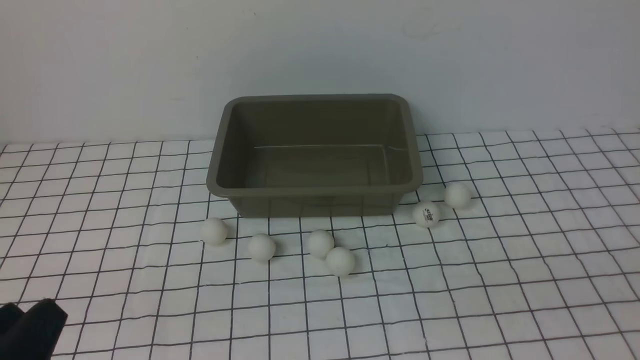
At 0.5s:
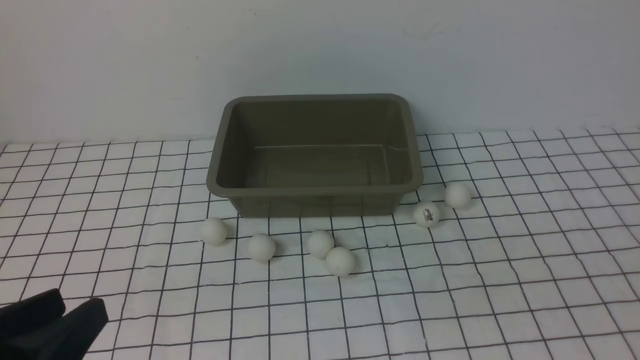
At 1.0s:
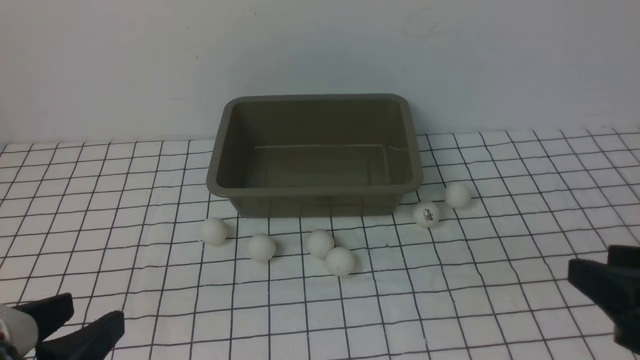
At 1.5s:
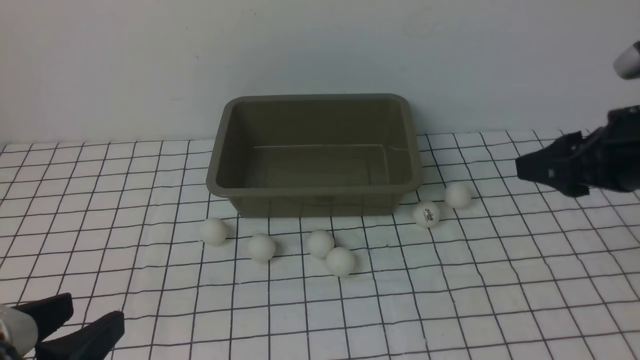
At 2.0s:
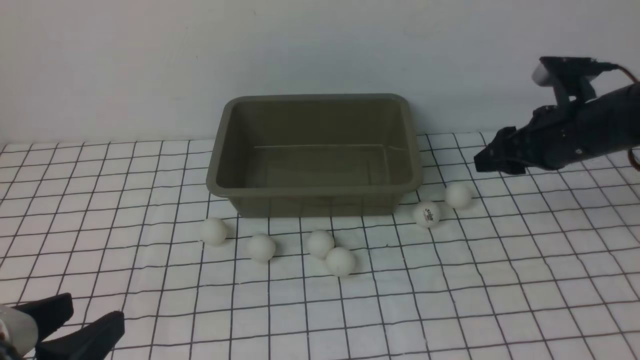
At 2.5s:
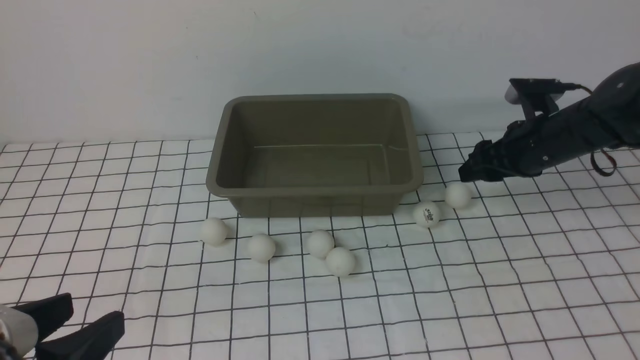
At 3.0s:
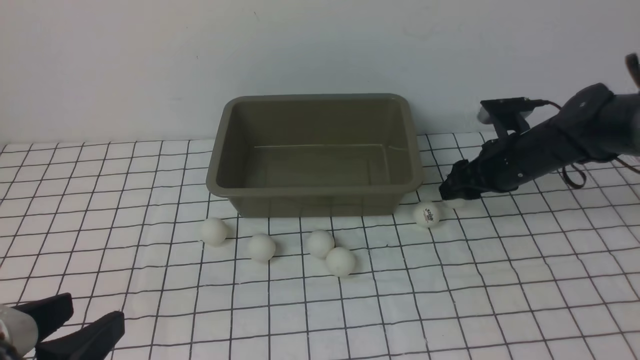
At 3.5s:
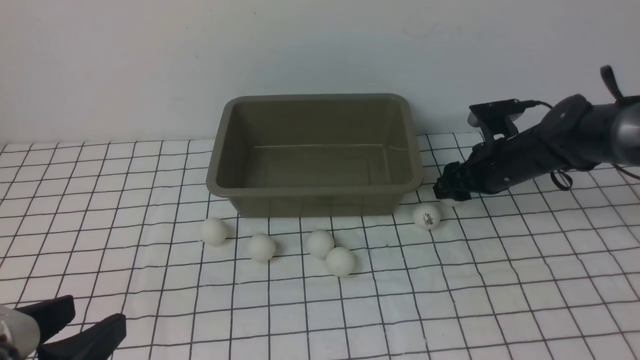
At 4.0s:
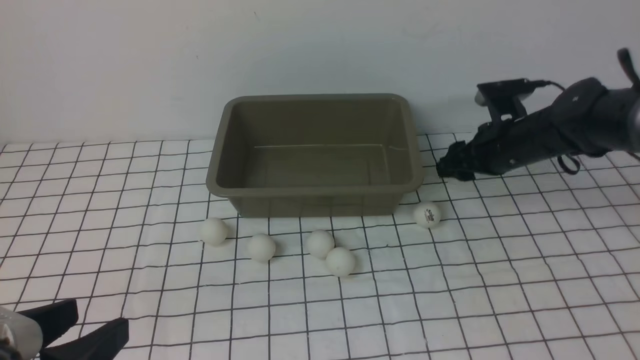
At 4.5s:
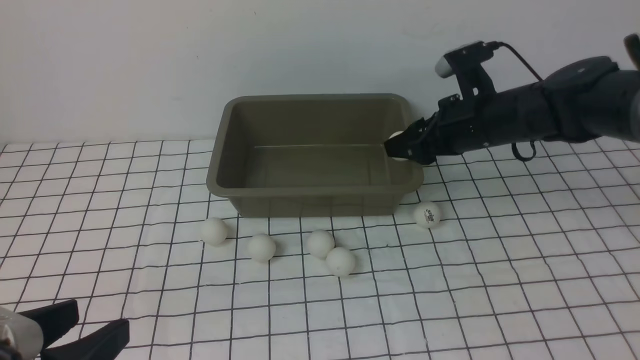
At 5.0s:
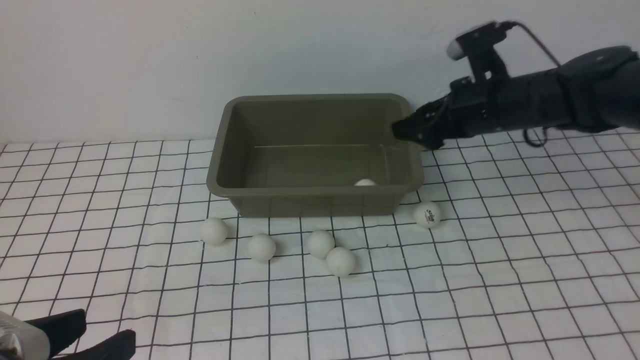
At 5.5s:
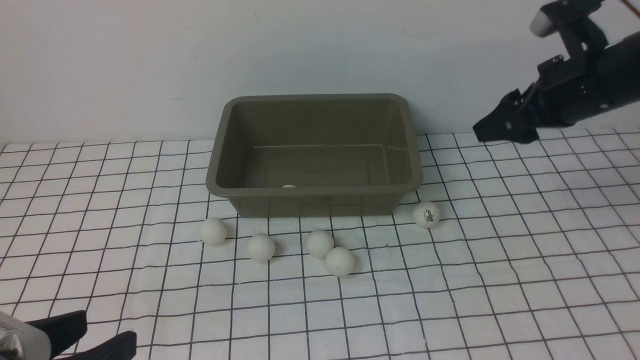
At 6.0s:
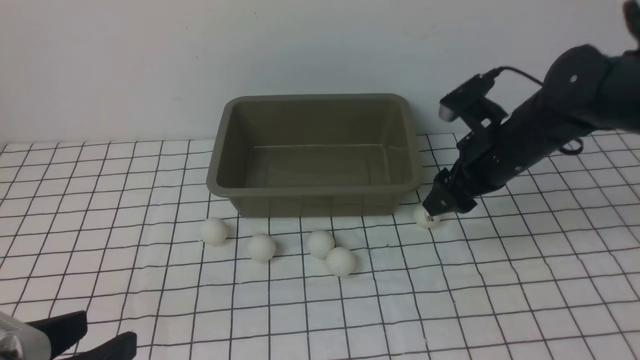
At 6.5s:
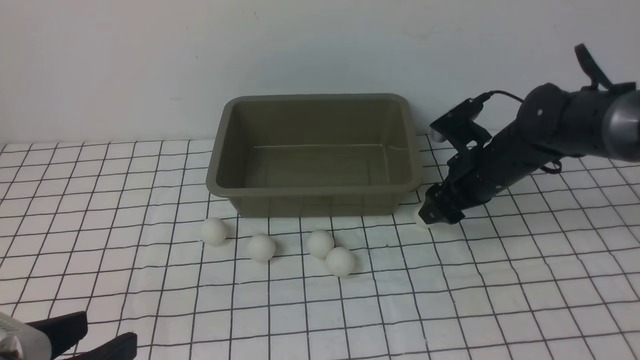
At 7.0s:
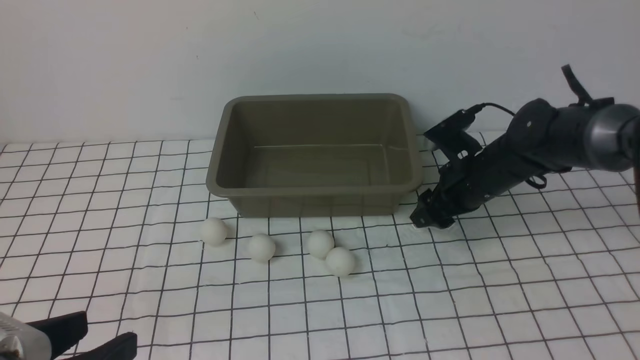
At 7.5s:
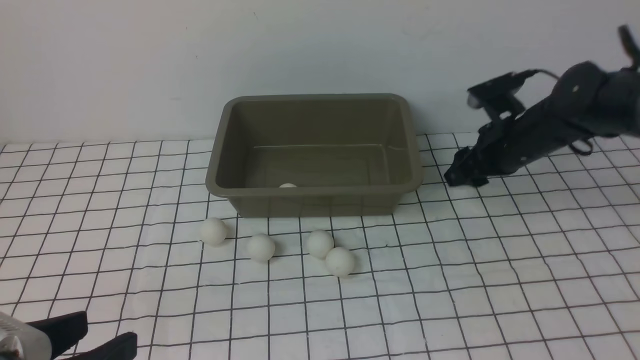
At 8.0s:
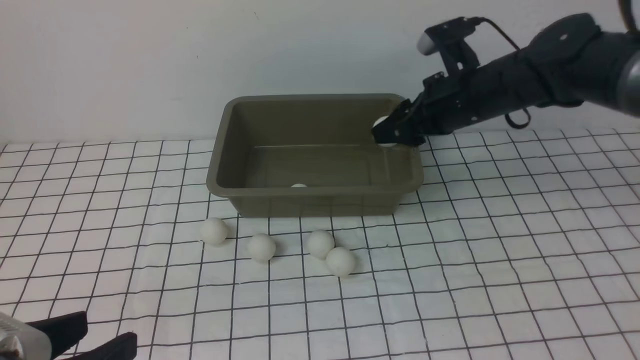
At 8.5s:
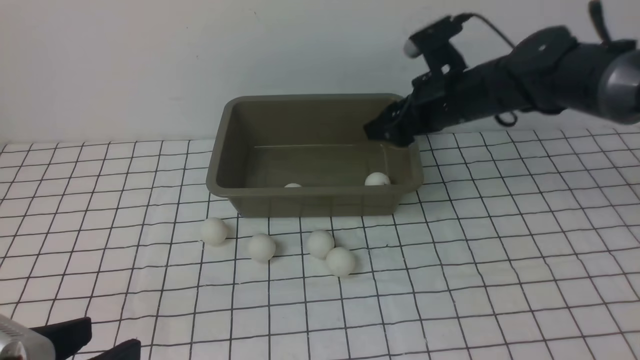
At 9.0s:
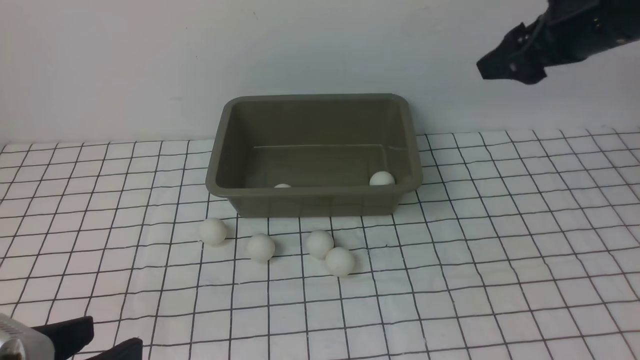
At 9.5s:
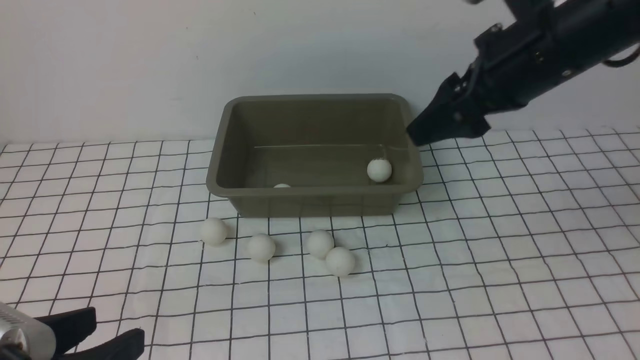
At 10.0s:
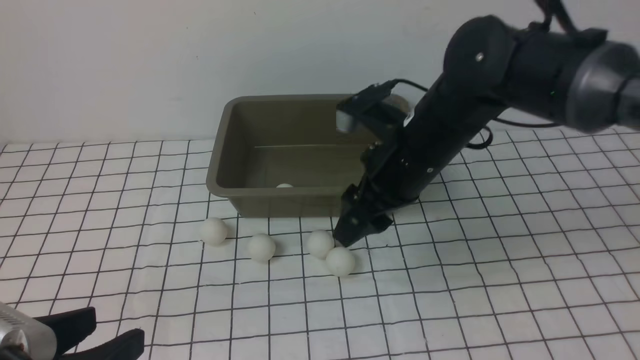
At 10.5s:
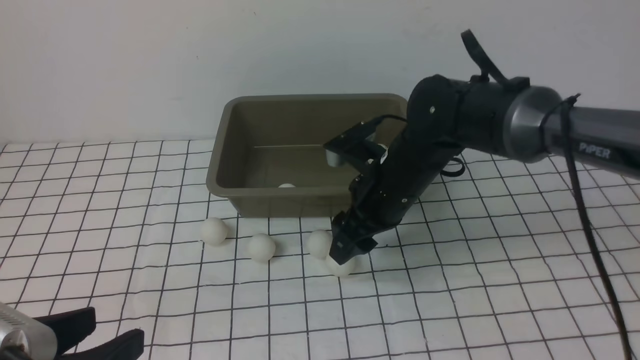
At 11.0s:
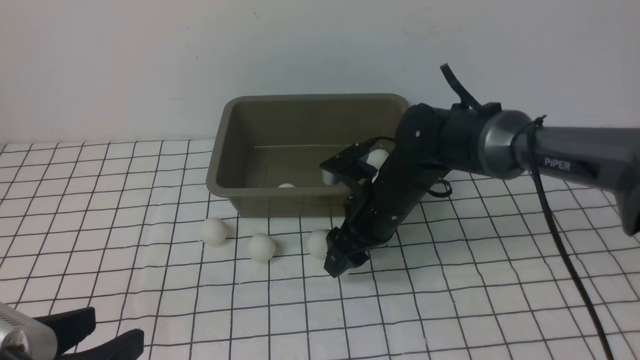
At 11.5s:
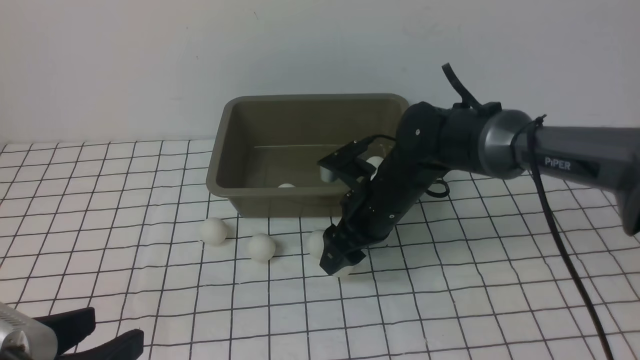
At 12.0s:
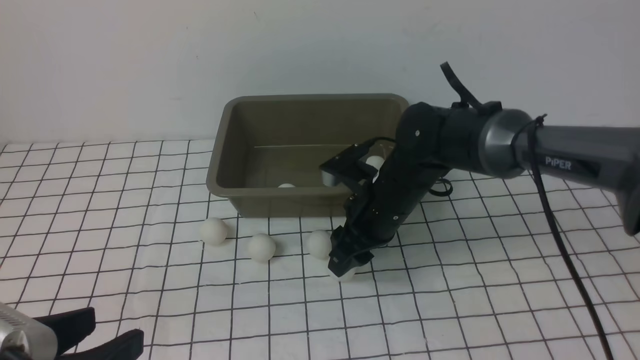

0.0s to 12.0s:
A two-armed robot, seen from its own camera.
Step, 0.0s to 4.0s: use the right arm to clamp the table tennis ball closest to it.
Step, 4.5s to 5.0s: use the right arm to put the table tennis ball into the box.
Step, 5.5s to 7.5s: use the right arm to clamp the table tennis ball closest to it.
Step, 8.0s to 8.5s: use the right arm to put the table tennis ball into the box.
0.0s to 2.0s: The right gripper travels forward by approximately 40 cm, and opens up.
2.0s to 4.0s: The right gripper heads to the left, covering approximately 10 cm.
6.0s to 8.0s: The right gripper goes roughly 10 cm upward.
8.0s to 10.0s: The right gripper is displaced downward, to the left and backward by some 15 cm.
10.0s to 12.0s: The grippers make only small movements.

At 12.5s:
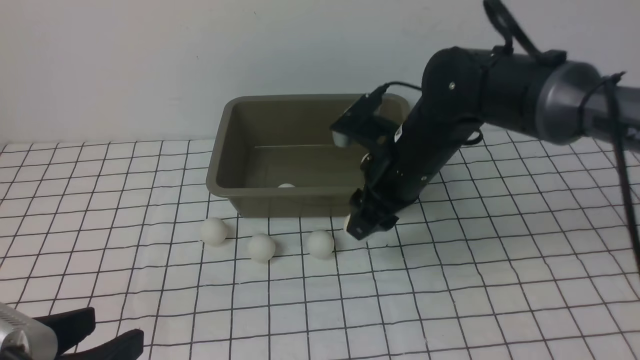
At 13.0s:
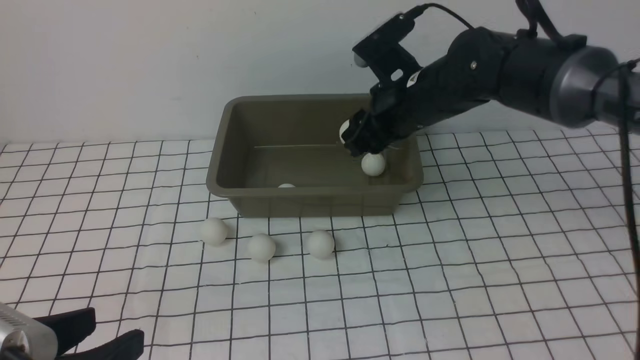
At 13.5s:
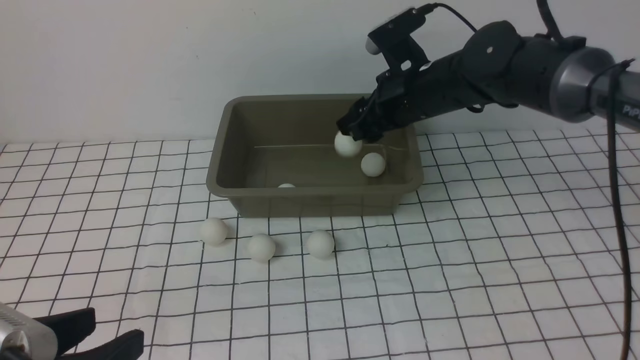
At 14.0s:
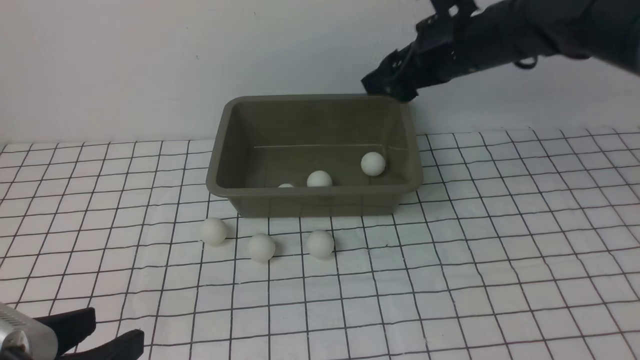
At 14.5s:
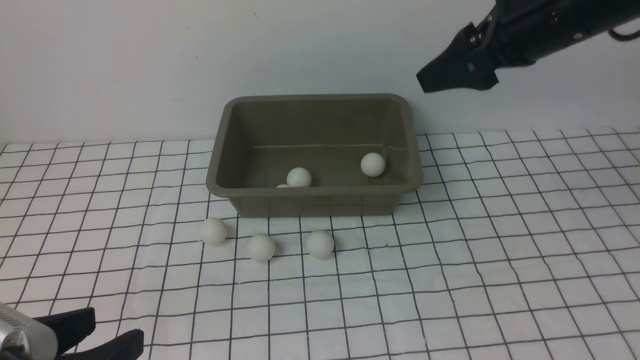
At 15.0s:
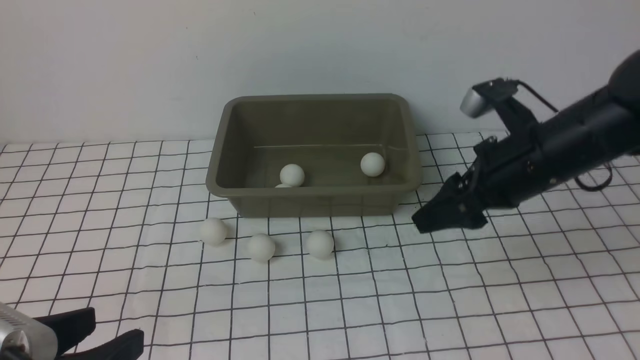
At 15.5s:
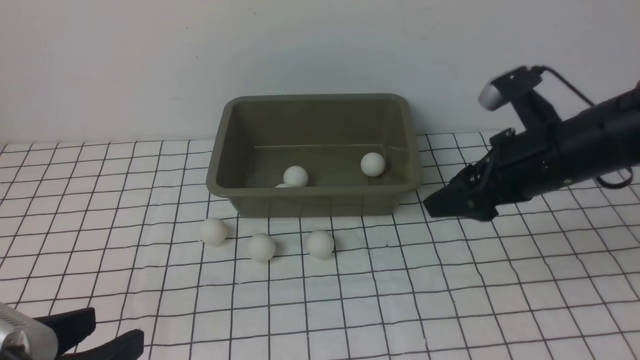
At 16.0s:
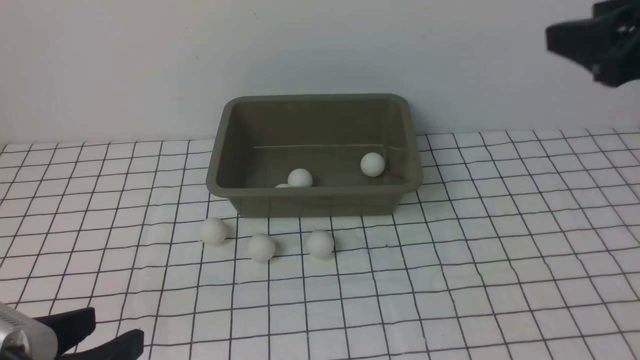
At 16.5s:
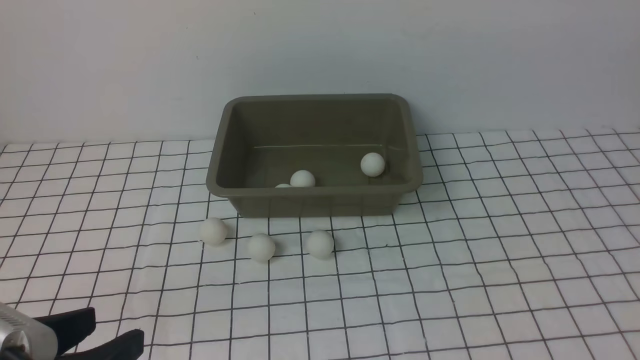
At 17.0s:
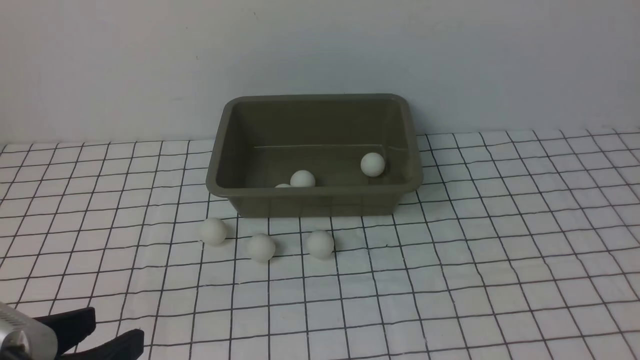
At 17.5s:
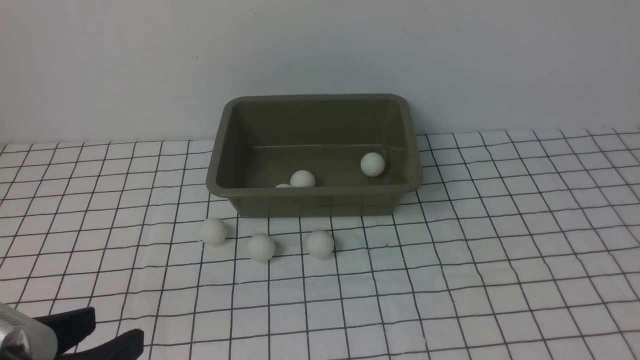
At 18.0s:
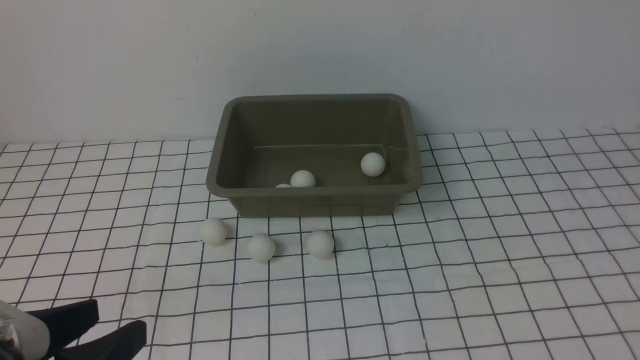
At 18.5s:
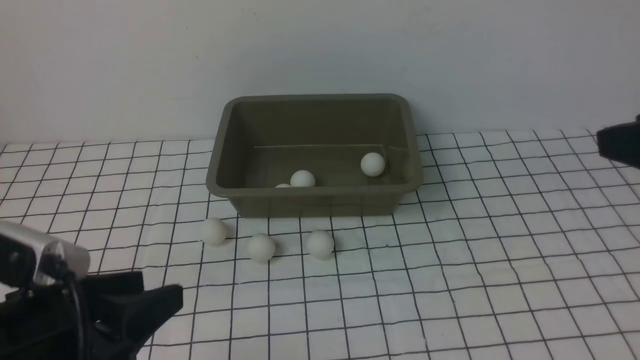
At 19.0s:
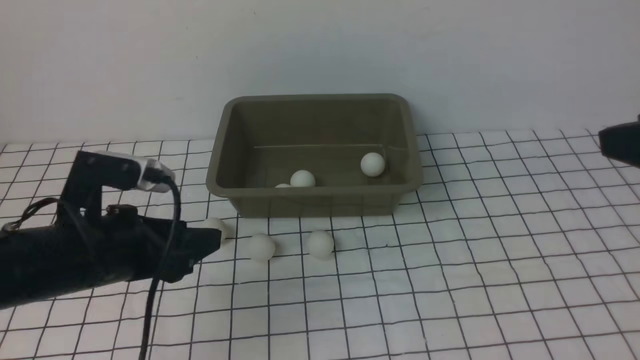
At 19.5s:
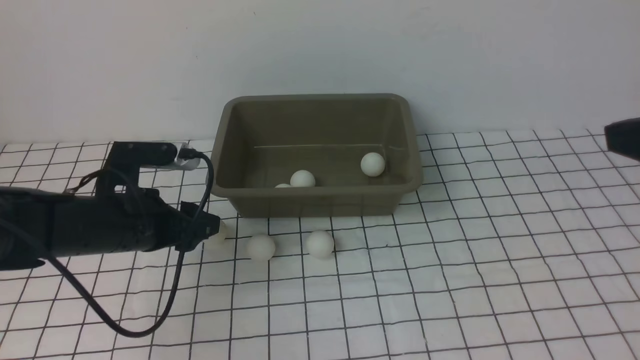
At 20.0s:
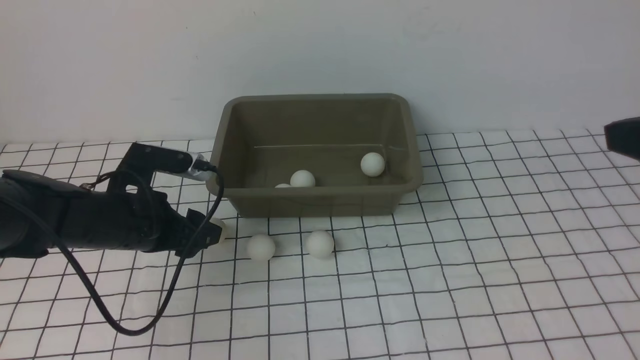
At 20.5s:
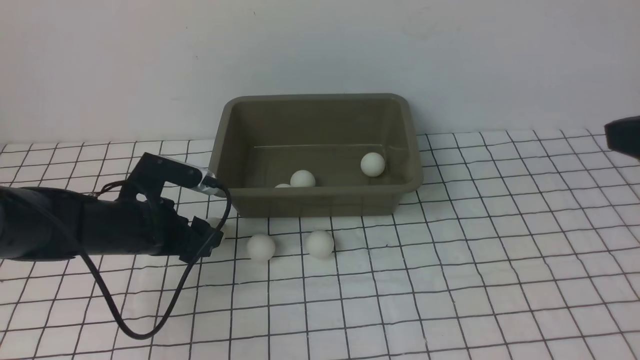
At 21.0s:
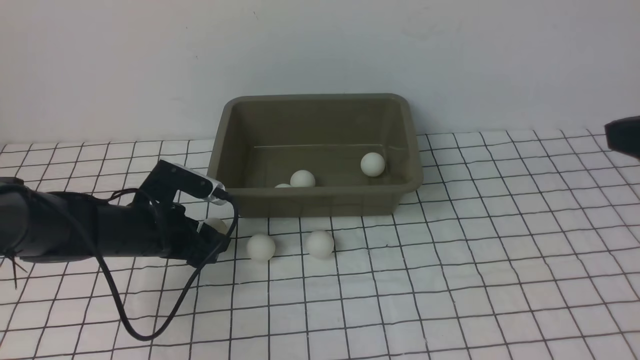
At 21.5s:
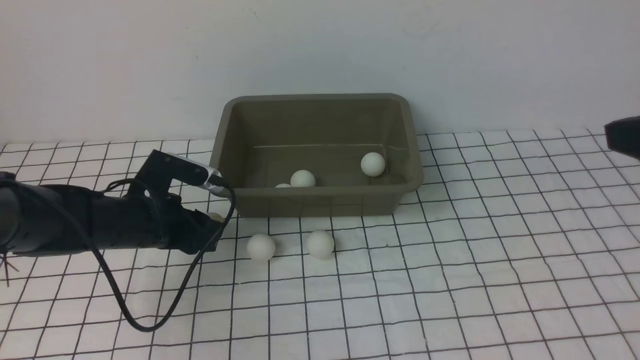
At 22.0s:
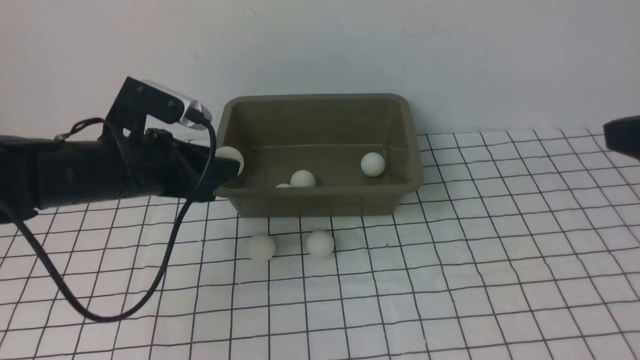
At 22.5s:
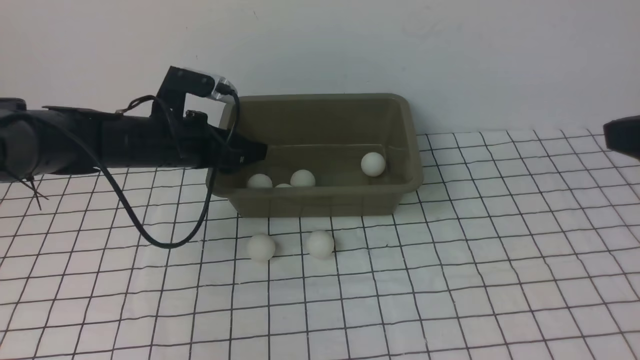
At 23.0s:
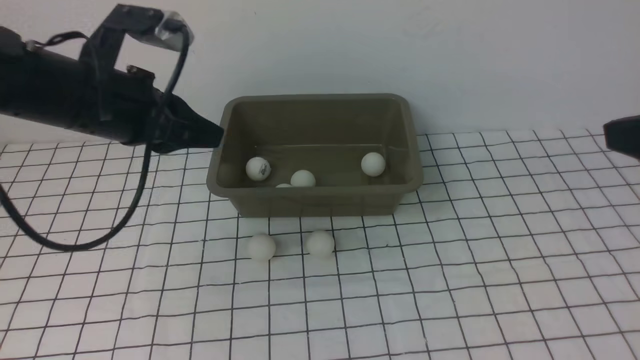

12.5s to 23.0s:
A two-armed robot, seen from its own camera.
Step, 13.0s to 13.5s: use the right arm to put the table tennis ball into the box.
Step, 14.0s to 21.5s: use the left arm to clamp the table tennis ball closest to it.
Step, 22.0s to 22.5s: use the left arm to put the table tennis ball into the box.
12.5s to 14.5s: The right gripper is displaced to the right by roughly 10 cm, reaches some 10 cm upward, then returns, and opens up.
14.5s to 16.5s: The right gripper moves upward, backward and to the right, roughly 25 cm.
16.5s to 19.0s: The left gripper is displaced forward by roughly 15 cm. Meanwhile the right gripper is displaced downward by about 5 cm.
19.0s to 21.0s: The left gripper goes some 15 cm forward and downward.
21.0s to 23.0s: The left gripper moves upward, about 20 cm, and closes.
